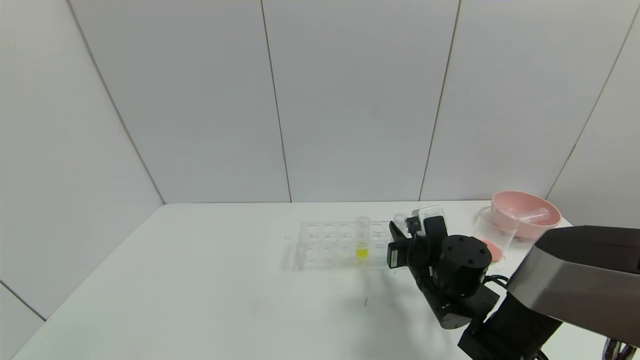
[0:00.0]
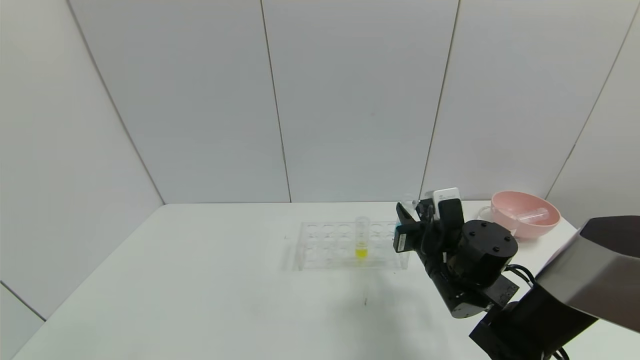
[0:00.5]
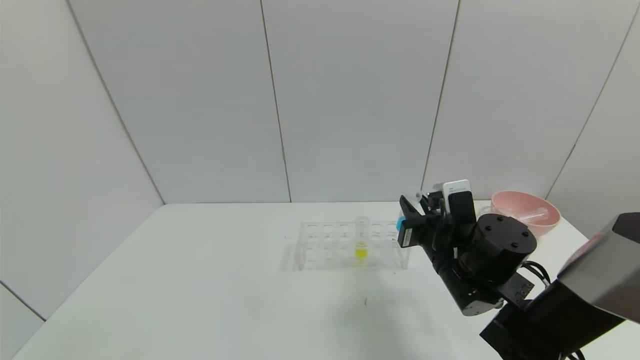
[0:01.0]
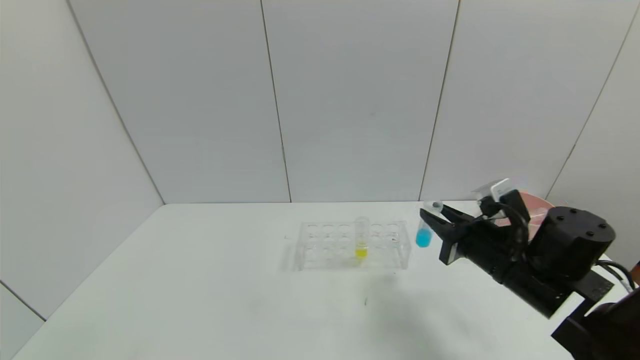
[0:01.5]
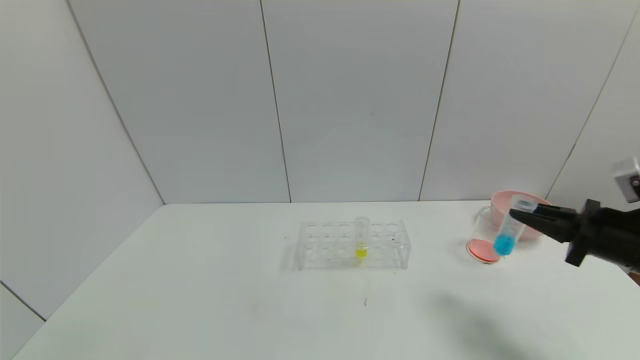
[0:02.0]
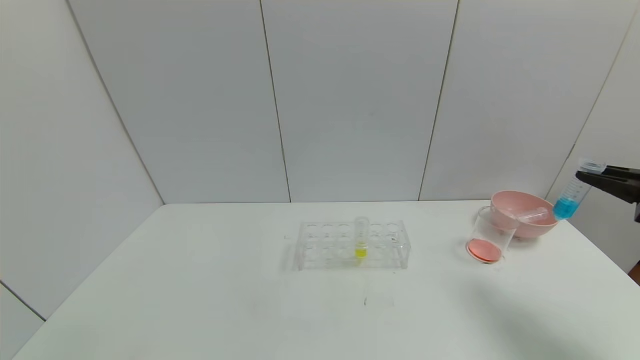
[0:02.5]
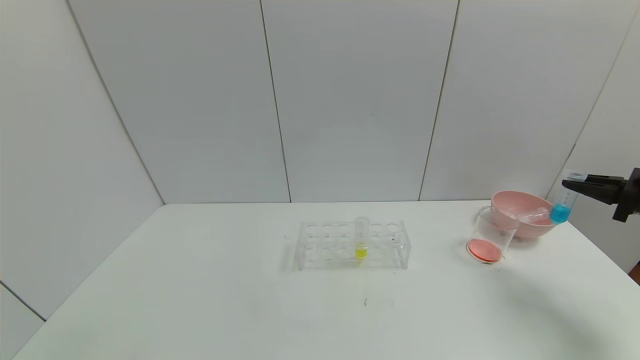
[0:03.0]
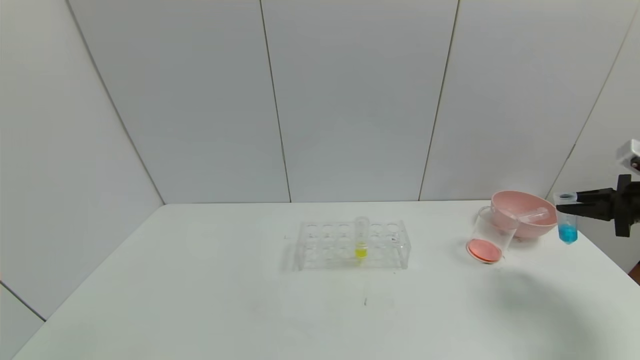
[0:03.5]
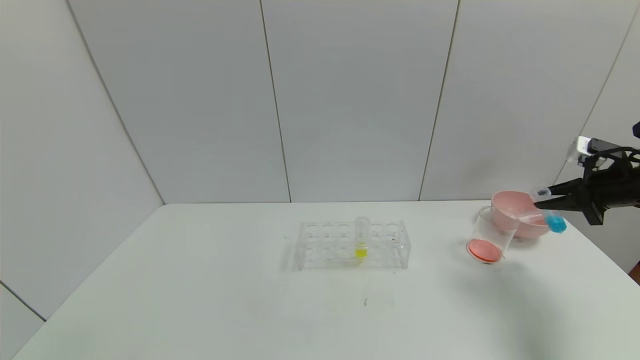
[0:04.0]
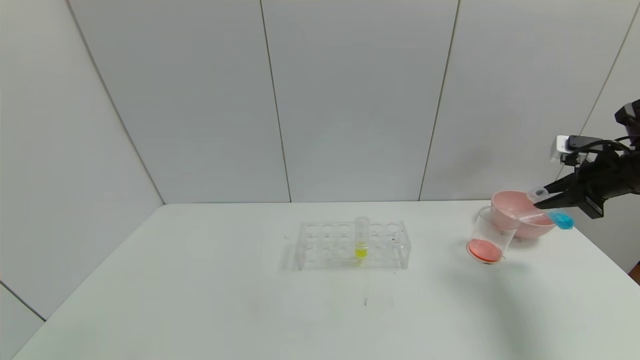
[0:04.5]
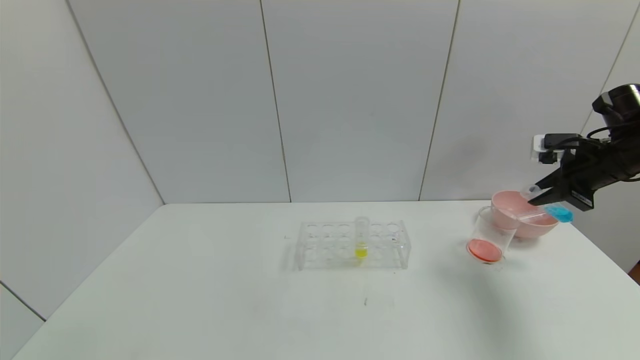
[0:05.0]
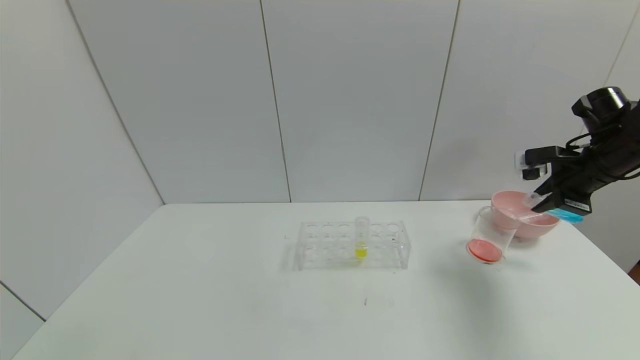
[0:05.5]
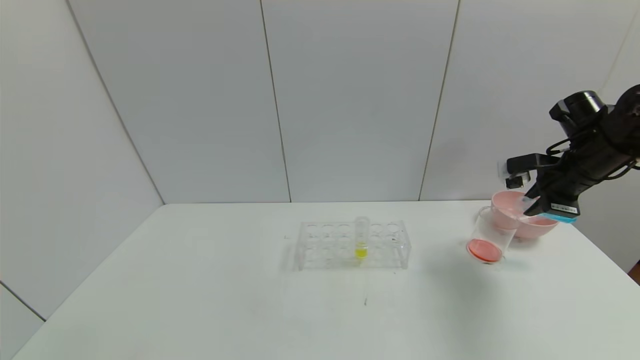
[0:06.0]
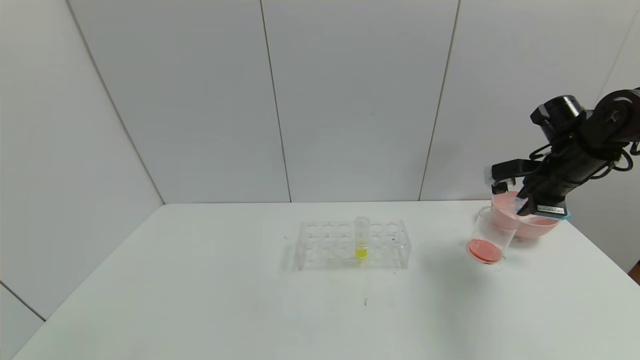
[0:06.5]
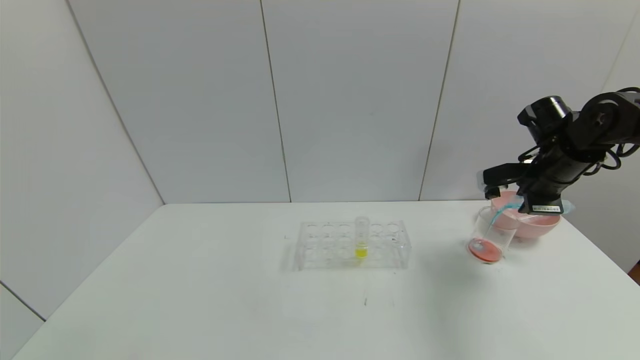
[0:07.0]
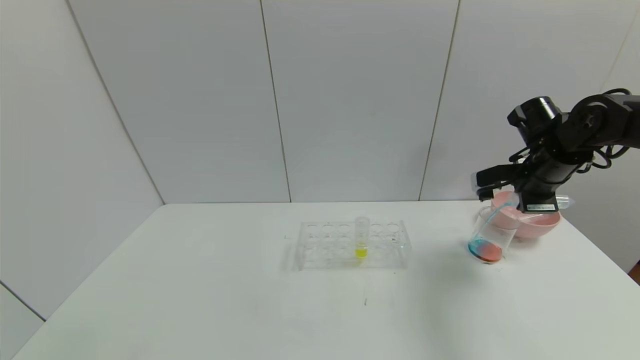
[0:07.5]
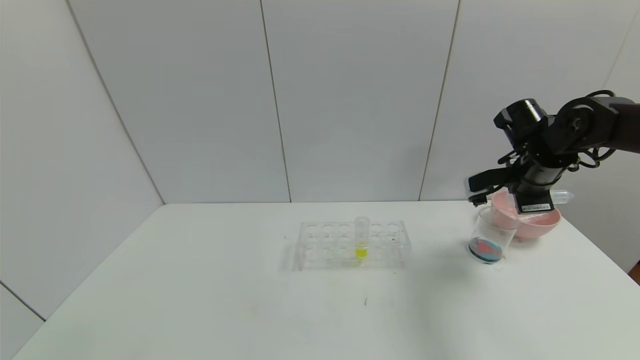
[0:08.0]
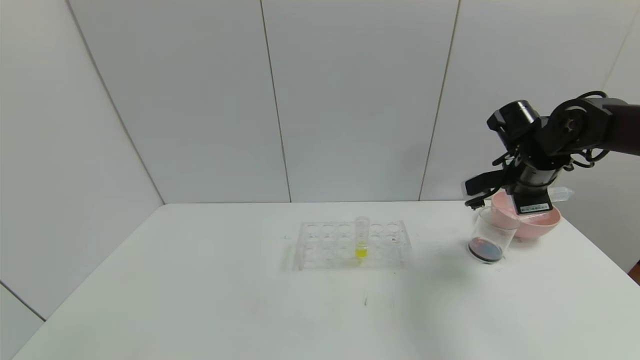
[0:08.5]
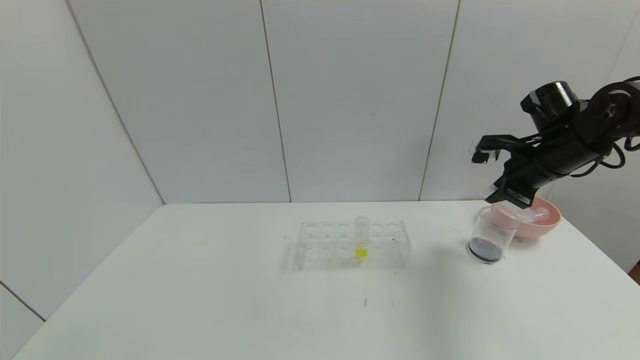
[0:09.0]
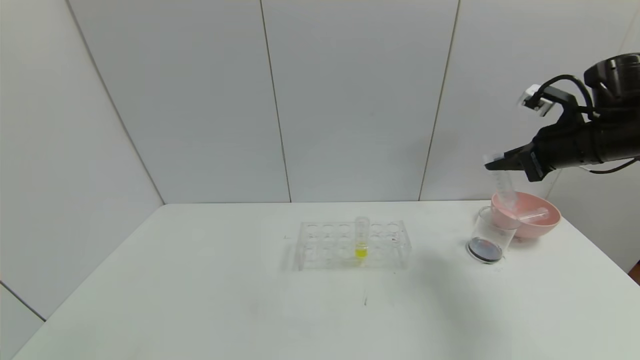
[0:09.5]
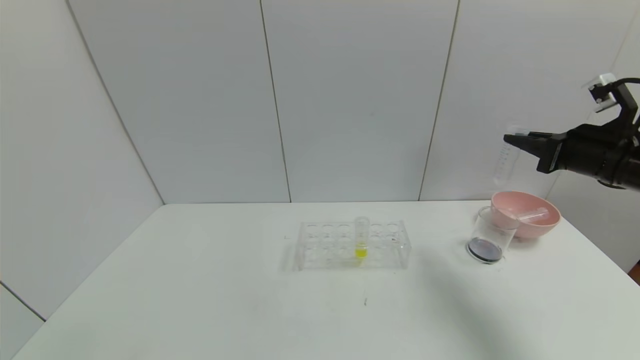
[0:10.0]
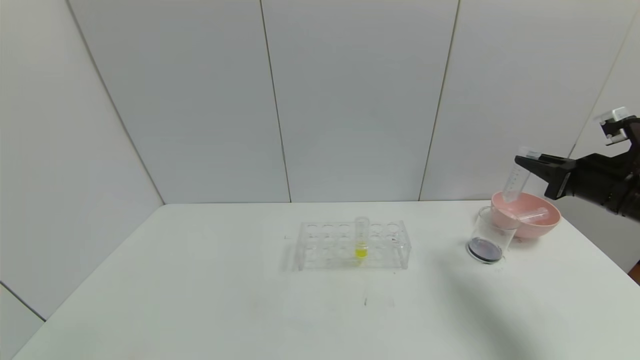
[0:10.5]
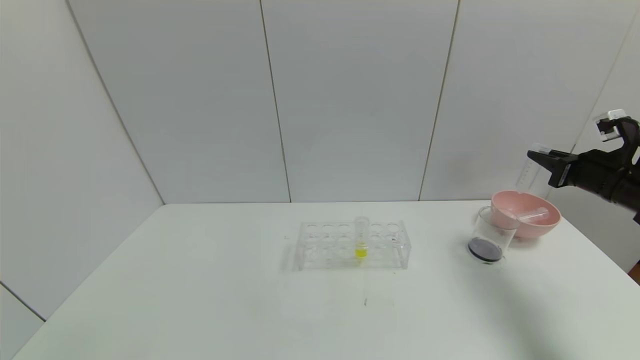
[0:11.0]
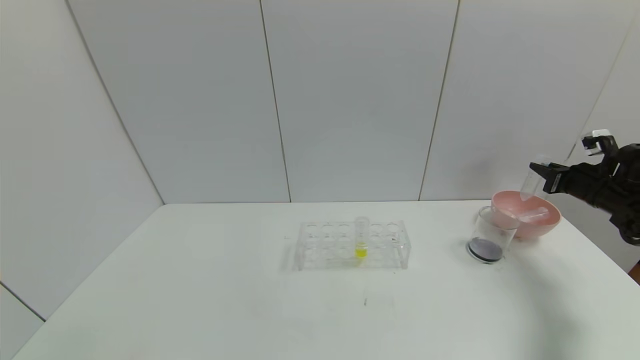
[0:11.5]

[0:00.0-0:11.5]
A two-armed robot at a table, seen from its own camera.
Task of the whole recording: pick up the test tube with red pigment and the test tube with blue pigment by grippers and pour them into the container.
Step, 0:00.0 to 0:08.5: Pour the blue reagent into the graduated cylinder with the right gripper.
0:00.0 to 0:02.0: The right gripper moves to the right and upward, some 25 cm.
0:02.0 to 0:04.0: The right gripper travels forward and to the right by about 10 cm.
0:04.0 to 0:06.0: The right gripper heads to the left, covering some 10 cm.
0:06.0 to 0:07.5: The grippers make only small movements.
0:07.5 to 0:09.5: The right gripper moves upward, roughly 5 cm.
0:09.5 to 0:11.5: The right gripper shifts roughly 20 cm to the right, downward and forward.

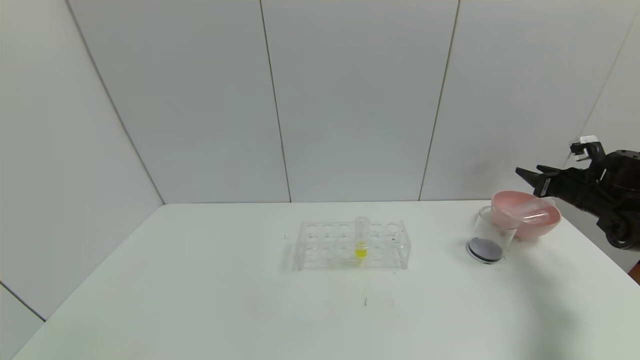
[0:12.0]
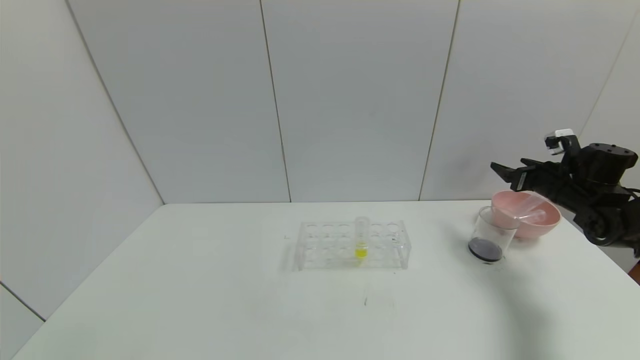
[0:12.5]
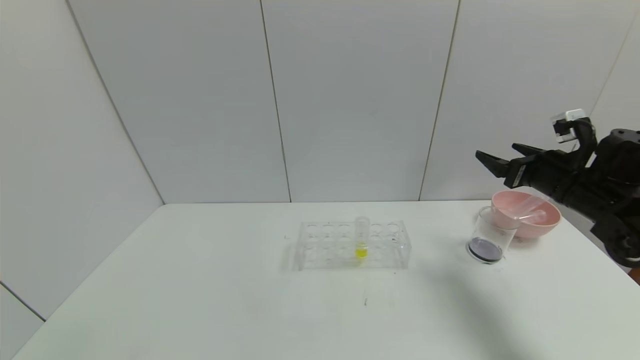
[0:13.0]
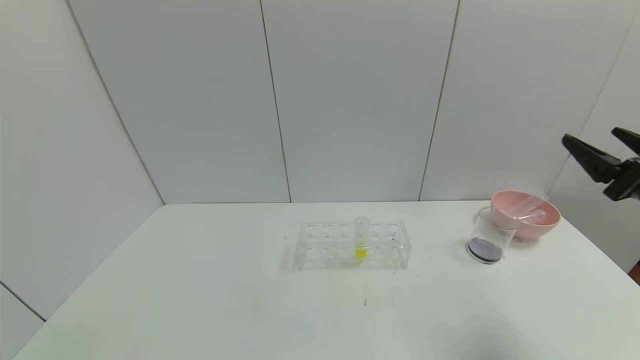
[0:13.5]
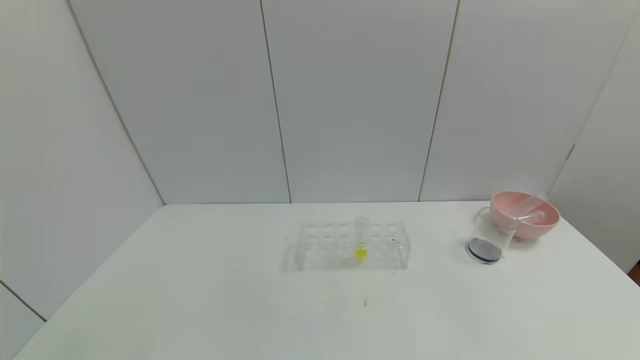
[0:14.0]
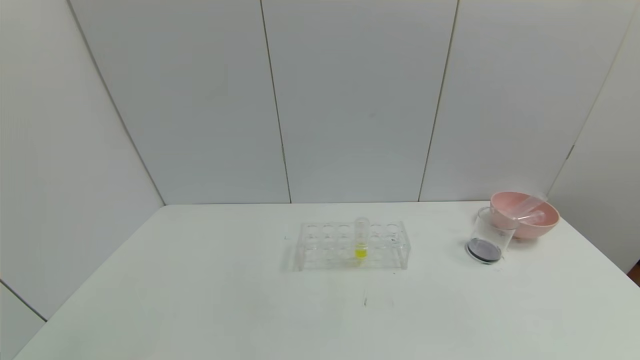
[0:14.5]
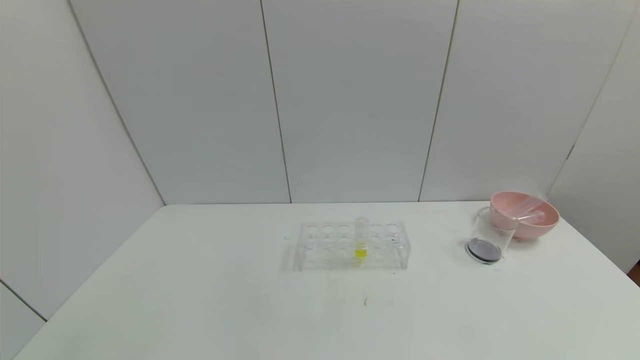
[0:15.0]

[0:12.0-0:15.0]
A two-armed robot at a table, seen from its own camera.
Task of the whole recording: pick up the test tube with red pigment and the test tube with blue pigment by grippers and pour them into the container.
0:12.0 to 0:13.5: The right gripper heads backward, upward and to the left, covering some 25 cm, and opens up.
0:13.5 to 0:15.0: The right gripper heads backward and downward, covering about 30 cm.
